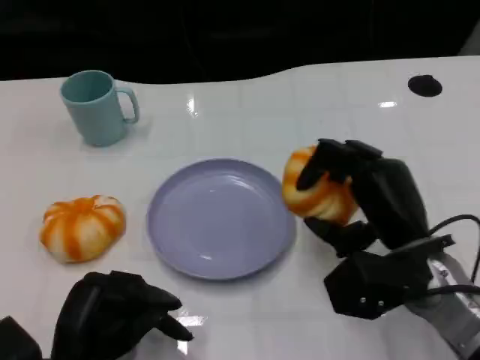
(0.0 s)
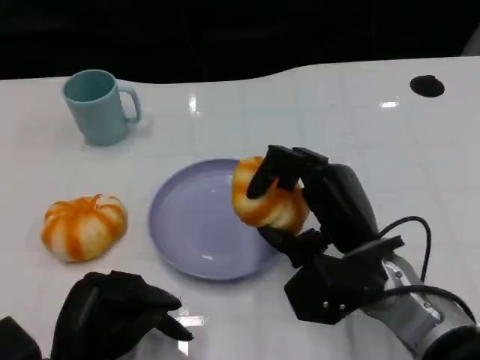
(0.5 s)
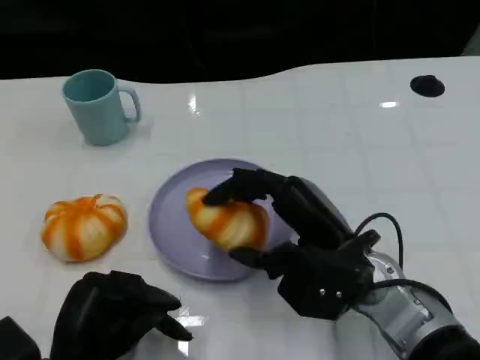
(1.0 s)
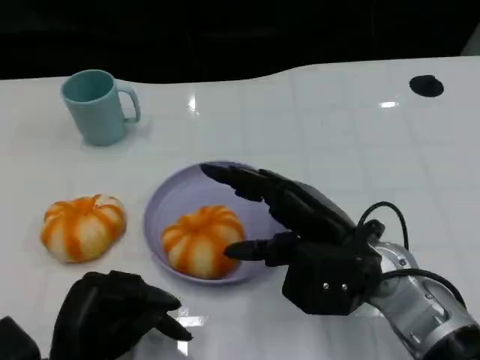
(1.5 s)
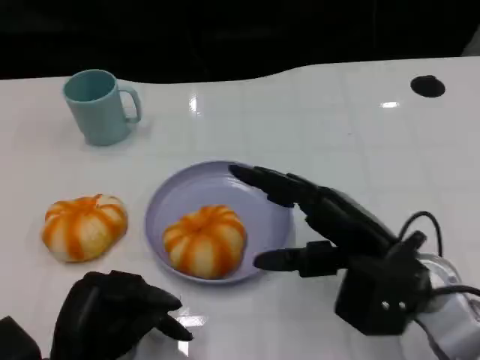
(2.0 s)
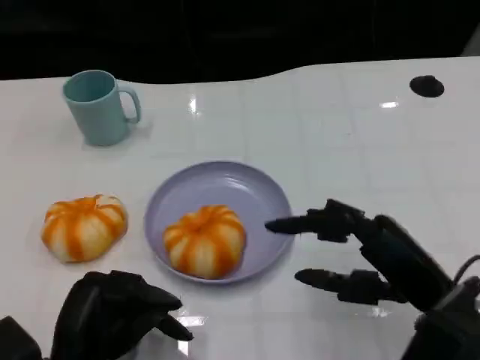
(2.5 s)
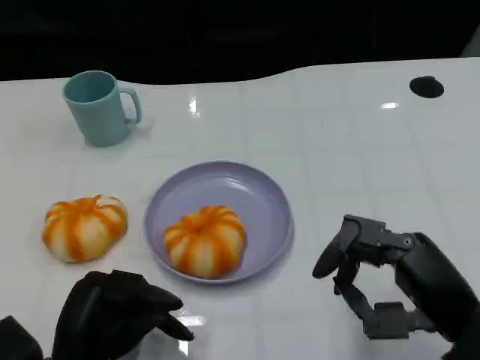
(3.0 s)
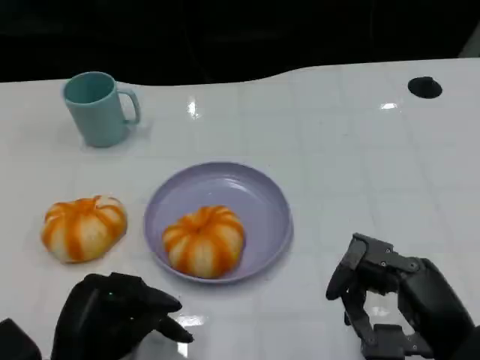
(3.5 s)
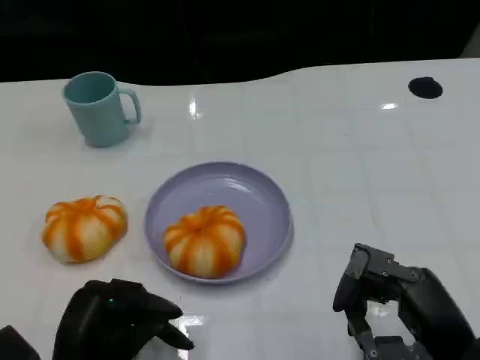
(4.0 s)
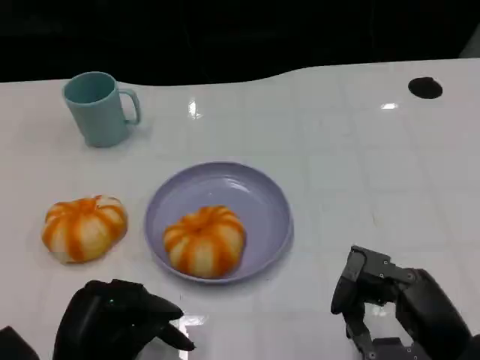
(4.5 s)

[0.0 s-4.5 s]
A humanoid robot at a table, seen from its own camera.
Task of the whole recording: Grasp the bread from the table and place it into the plate.
2.0 to 4.5 s: The right hand is displaced backward by roughly 10 cm.

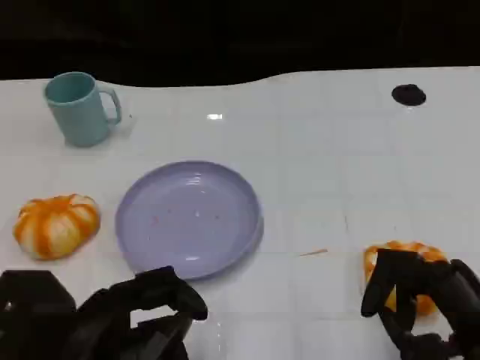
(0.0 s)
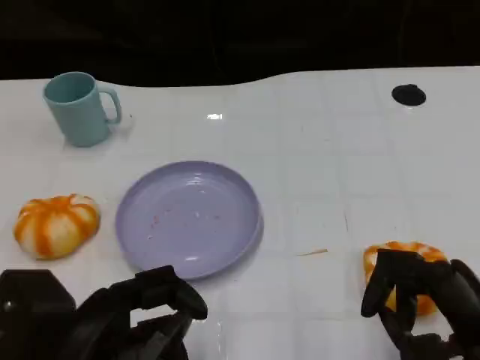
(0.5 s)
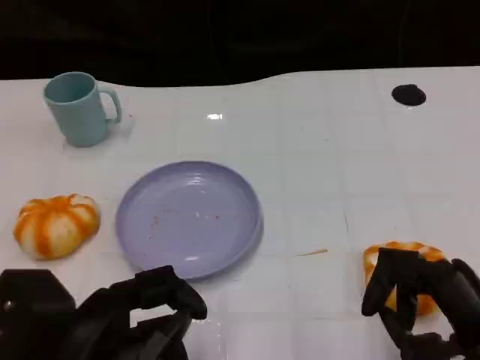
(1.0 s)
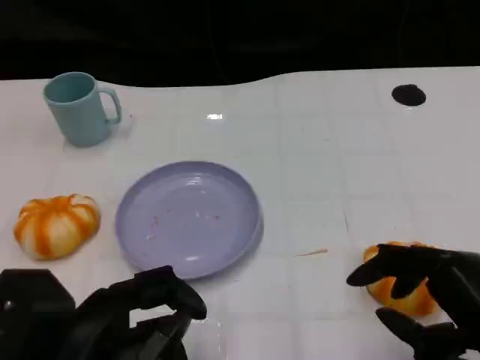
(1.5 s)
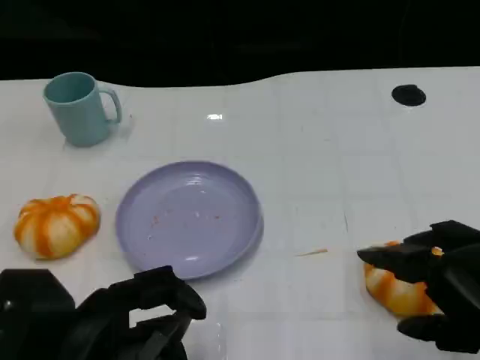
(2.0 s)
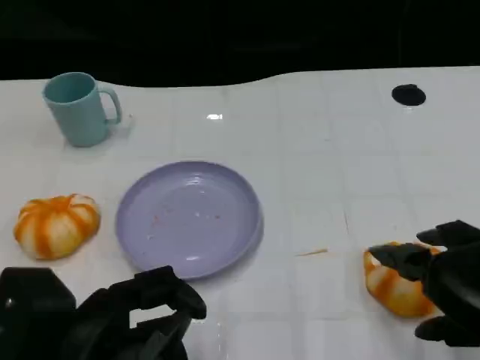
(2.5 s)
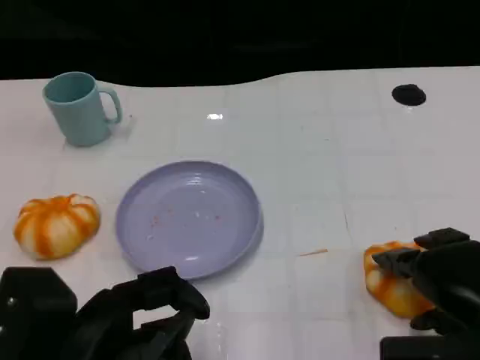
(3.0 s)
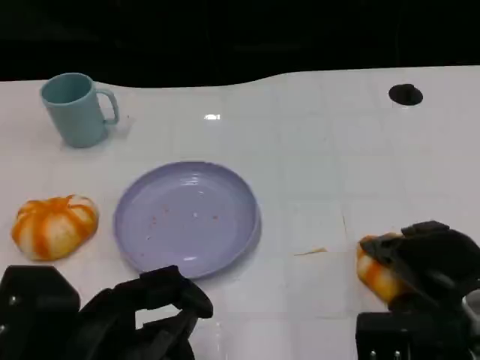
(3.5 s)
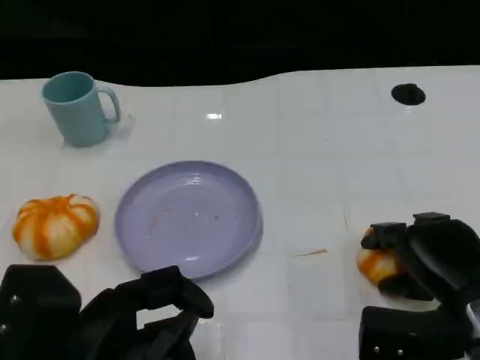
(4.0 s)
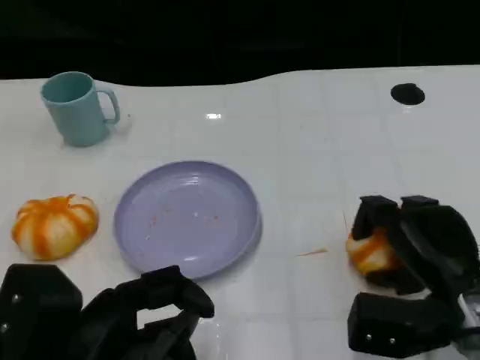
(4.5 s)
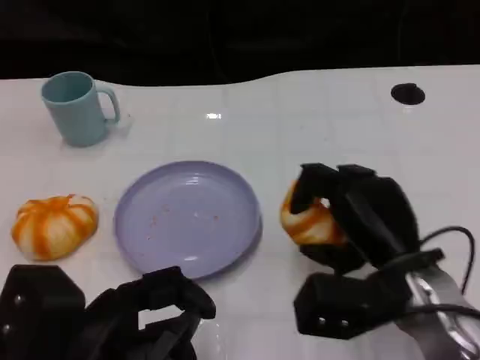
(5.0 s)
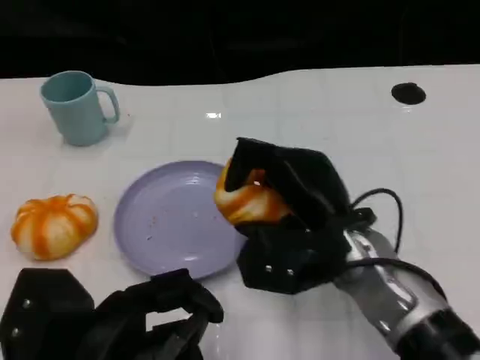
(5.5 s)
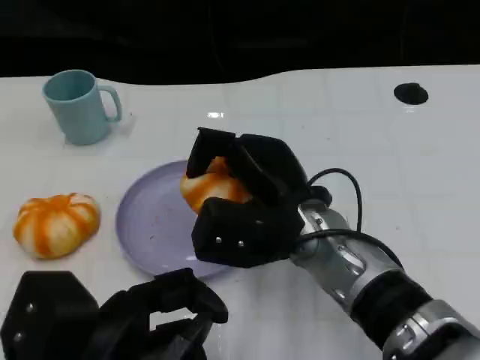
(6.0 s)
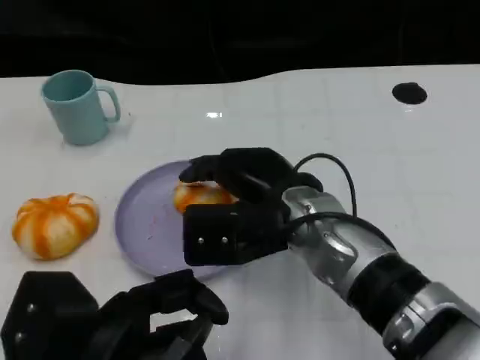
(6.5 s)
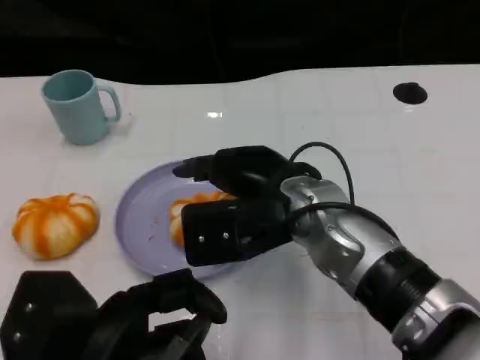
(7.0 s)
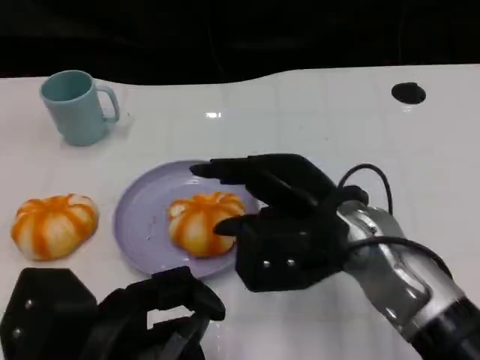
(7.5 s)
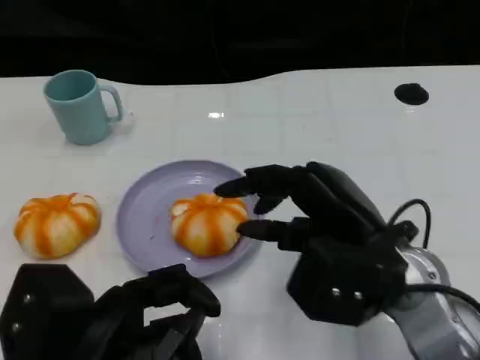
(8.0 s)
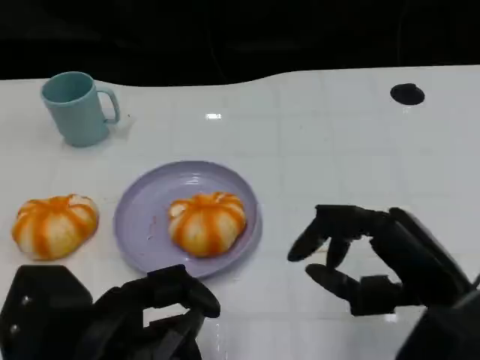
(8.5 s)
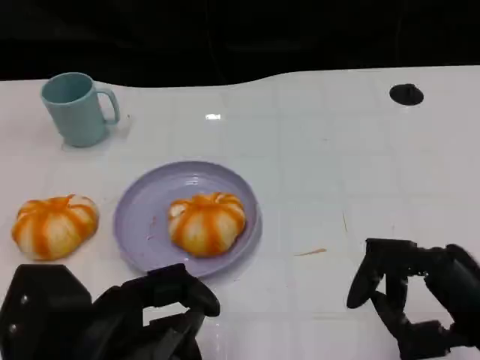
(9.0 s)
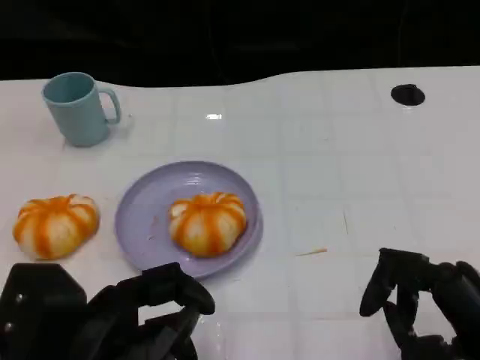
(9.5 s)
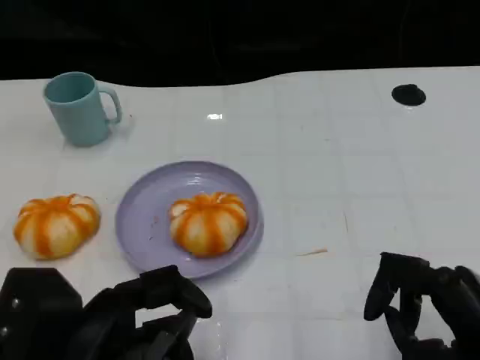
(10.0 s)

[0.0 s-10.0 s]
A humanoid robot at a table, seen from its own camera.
Task of the whole recording: Grasp the bread from the table and place it into the plate.
0.0 to 2.0 s: The right hand heads upward, covering about 5 cm.
2.0 to 4.0 s: The right hand heads downward and forward, covering some 15 cm.
4.0 to 6.0 s: The right hand travels to the left by approximately 15 cm.
6.0 to 8.0 s: The right hand heads to the right and backward, covering approximately 10 cm.
8.0 to 10.0 s: The right hand shifts about 15 cm to the right, backward and downward.
